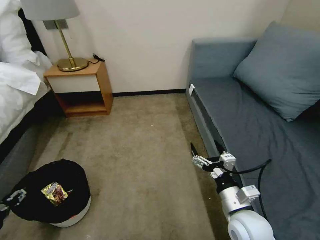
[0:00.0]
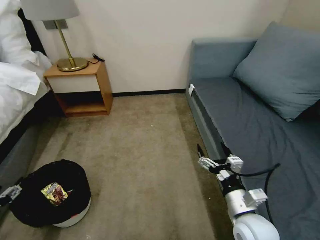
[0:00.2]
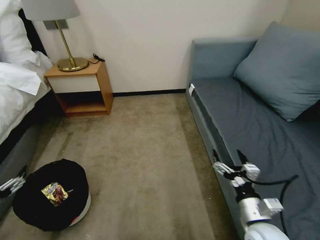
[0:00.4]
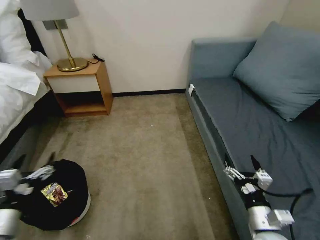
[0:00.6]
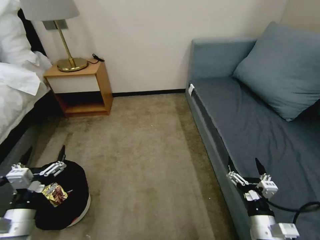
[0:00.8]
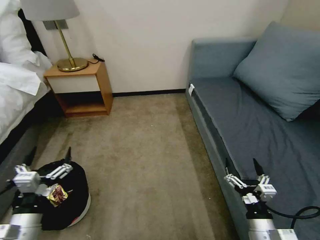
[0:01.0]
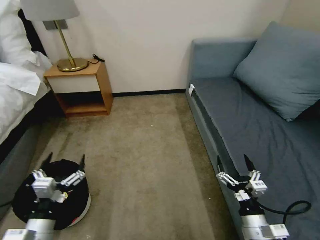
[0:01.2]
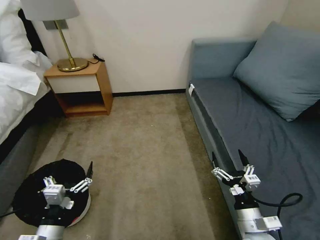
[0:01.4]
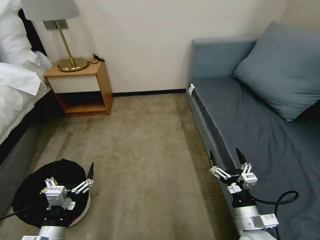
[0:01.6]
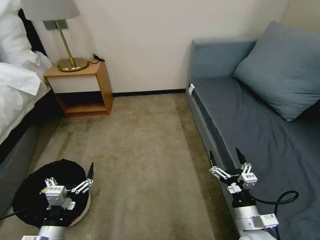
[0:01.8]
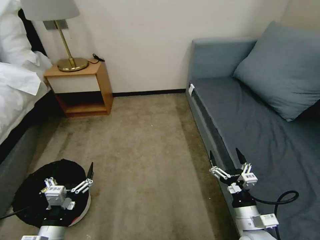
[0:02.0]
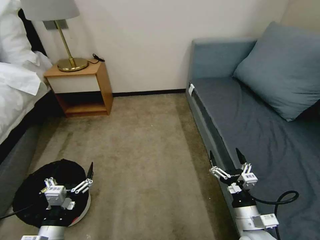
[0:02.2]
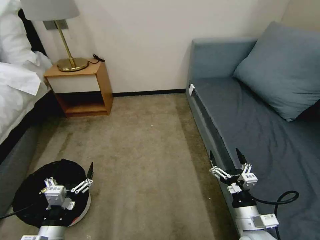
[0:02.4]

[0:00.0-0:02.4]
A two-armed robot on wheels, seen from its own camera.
Task of the whole recording: Pick up the trash bin, then pick up the garbage on the floor and place it into the trash bin.
0:00.0 to 0:01.2: The right gripper goes roughly 10 cm downward, backward and to the right; the left gripper goes about 20 cm to the right, and opens its fingers.
0:01.2 to 0:02.4: The grippers stay close to where they were, moving slightly.

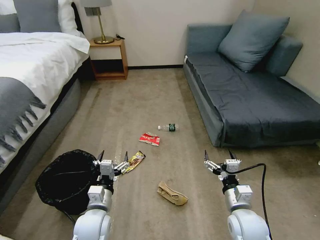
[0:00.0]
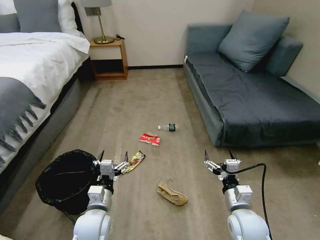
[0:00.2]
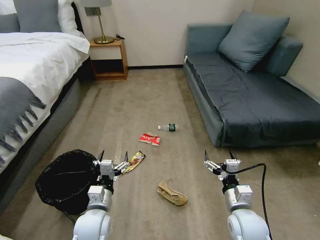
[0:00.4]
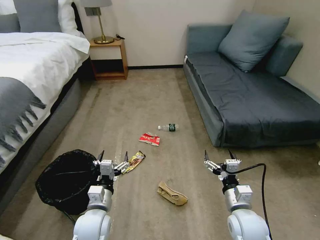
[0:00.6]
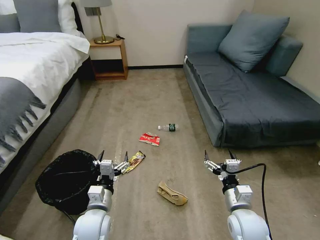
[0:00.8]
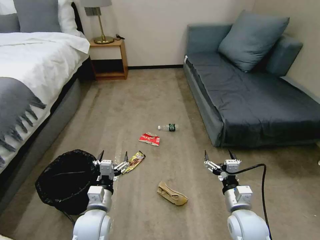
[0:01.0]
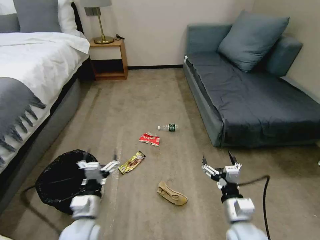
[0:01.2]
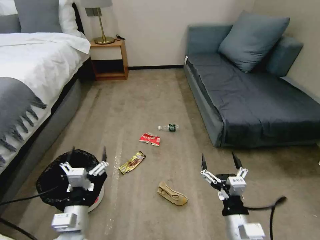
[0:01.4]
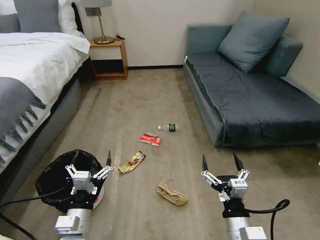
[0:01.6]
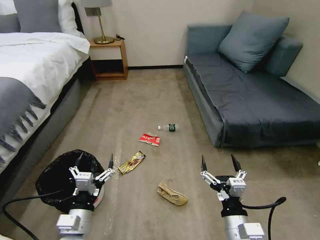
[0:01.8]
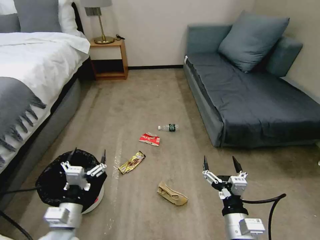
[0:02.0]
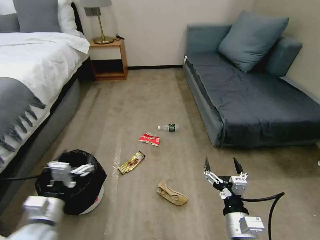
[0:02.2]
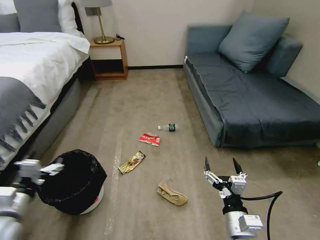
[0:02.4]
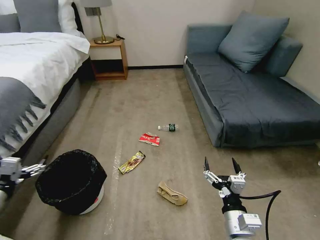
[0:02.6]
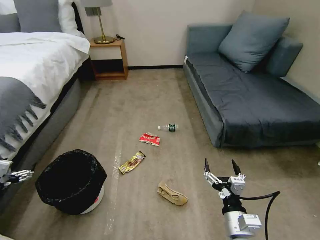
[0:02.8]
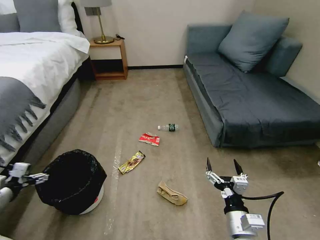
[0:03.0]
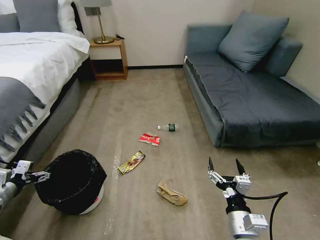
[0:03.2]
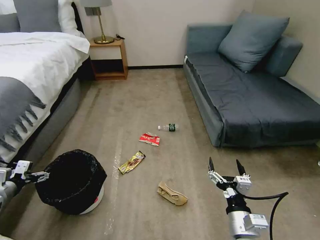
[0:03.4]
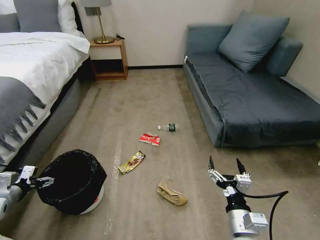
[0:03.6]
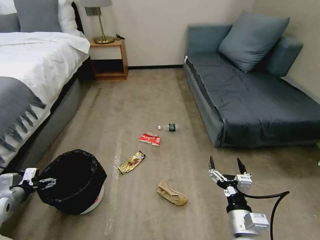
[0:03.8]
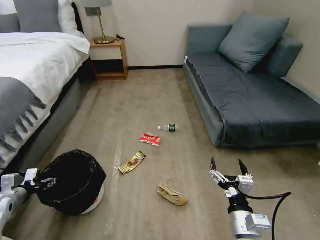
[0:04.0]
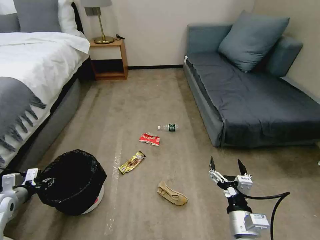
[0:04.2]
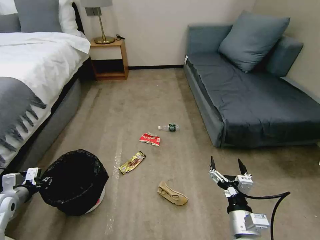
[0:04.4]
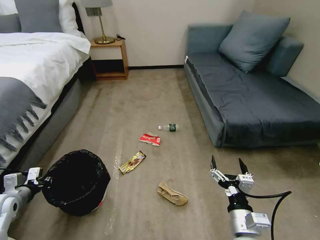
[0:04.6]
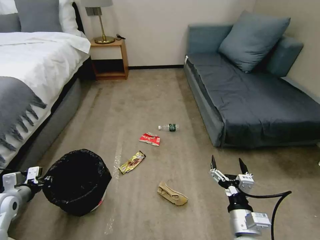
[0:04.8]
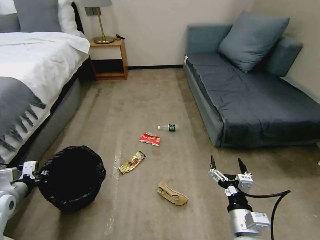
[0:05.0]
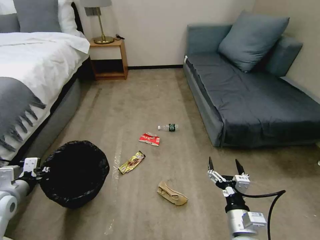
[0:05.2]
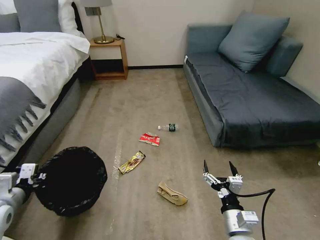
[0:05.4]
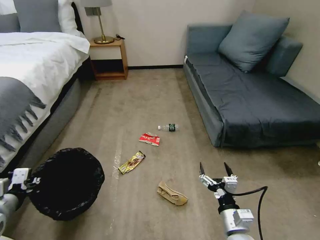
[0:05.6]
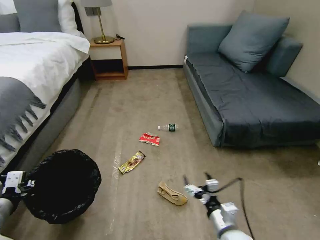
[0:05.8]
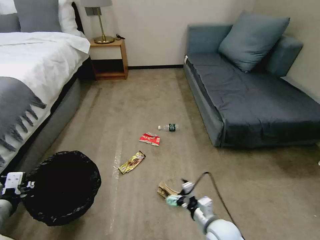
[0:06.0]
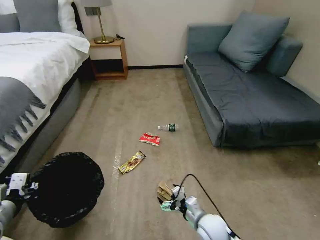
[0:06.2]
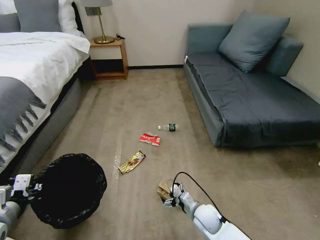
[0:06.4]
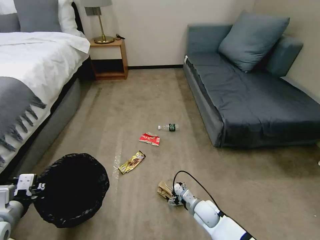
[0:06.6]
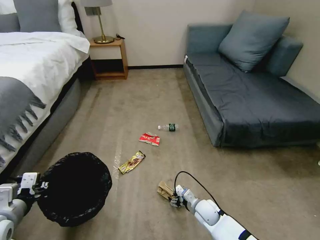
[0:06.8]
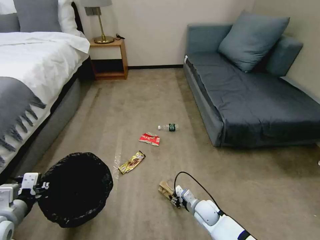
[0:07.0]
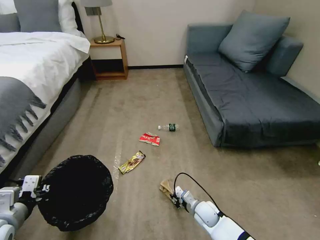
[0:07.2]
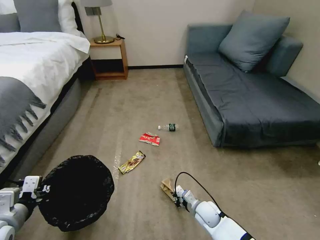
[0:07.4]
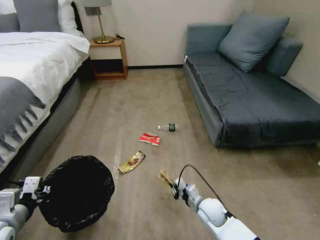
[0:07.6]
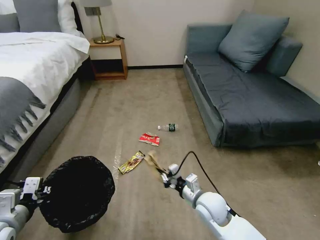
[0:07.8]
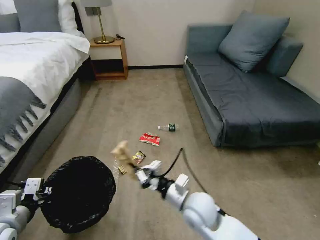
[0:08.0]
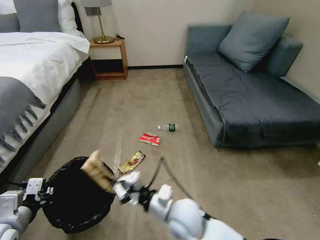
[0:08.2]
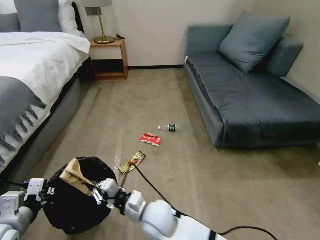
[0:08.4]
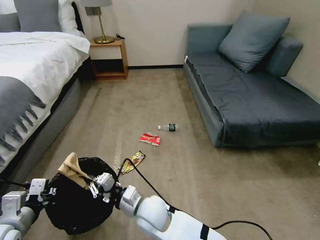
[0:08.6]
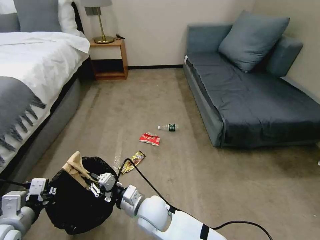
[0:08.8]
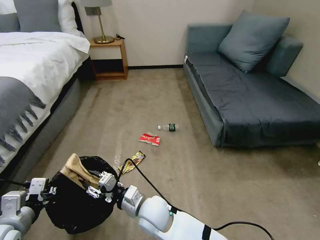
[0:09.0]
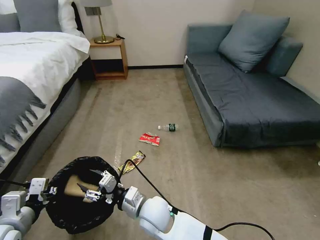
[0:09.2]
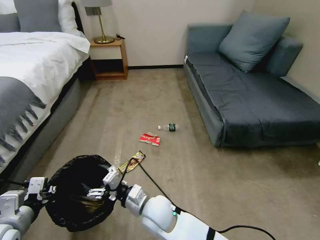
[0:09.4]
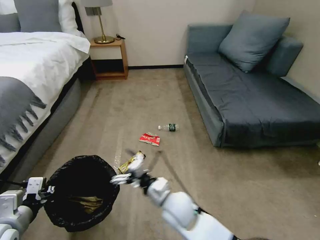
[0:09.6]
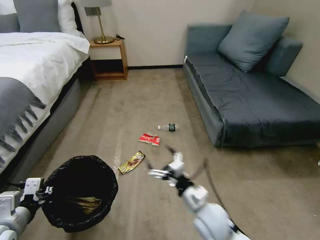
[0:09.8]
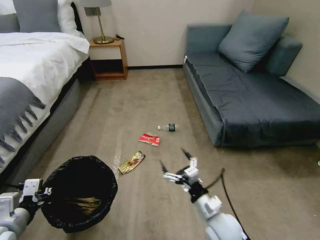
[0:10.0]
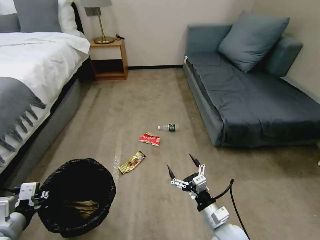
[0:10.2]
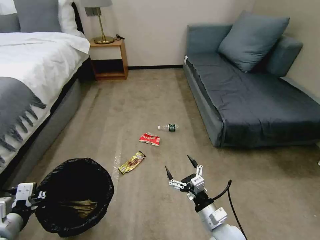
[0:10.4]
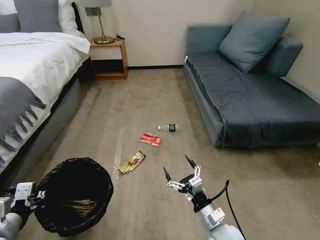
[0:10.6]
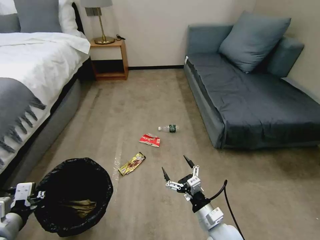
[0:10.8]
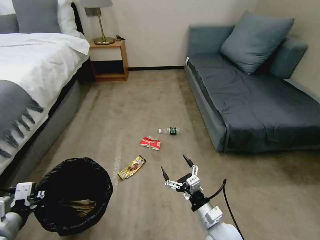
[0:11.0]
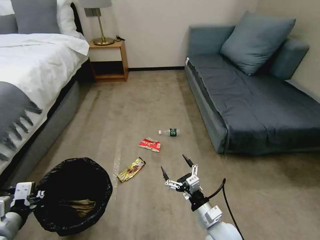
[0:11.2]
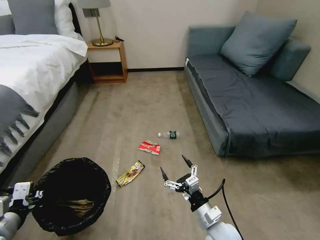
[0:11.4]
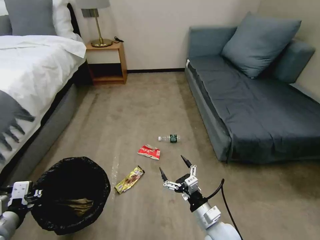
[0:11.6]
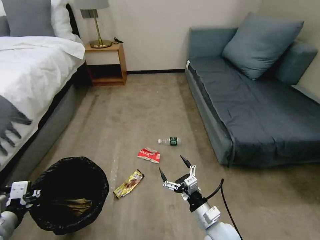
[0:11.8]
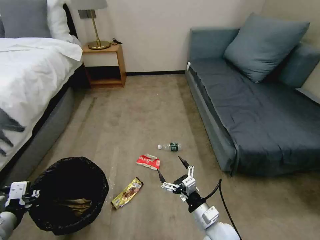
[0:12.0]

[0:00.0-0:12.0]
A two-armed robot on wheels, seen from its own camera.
Task of the whole recording: Pick up the trash bin, then pick up the garbage on the floor and place it into the trash bin.
0:01.6 to 0:03.0: The left gripper moves to the left, some 30 cm.
0:03.0 to 0:04.4: The left gripper closes up.
0:04.4 to 0:06.0: The right gripper travels downward by approximately 5 cm. Meanwhile the left gripper is displaced upward, backward and to the right by approximately 15 cm.
0:06.0 to 0:07.6: The right gripper goes some 10 cm forward and downward, and closes up.
0:07.6 to 0:09.0: The right gripper goes approximately 25 cm to the left and upward, and opens up.
0:09.0 to 0:10.4: The right gripper travels to the right by about 20 cm, and opens up.

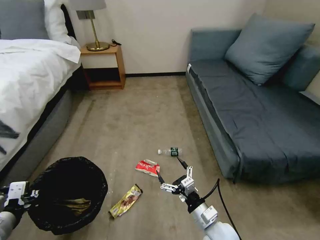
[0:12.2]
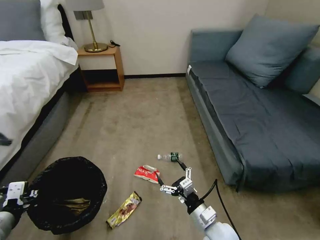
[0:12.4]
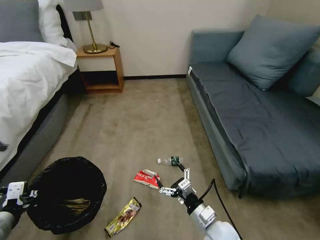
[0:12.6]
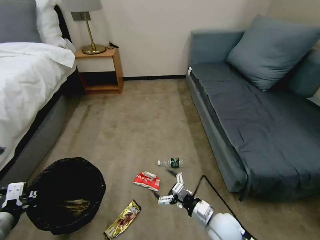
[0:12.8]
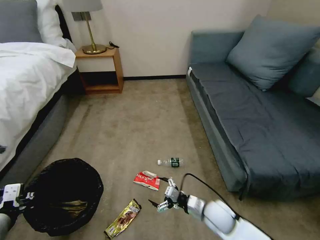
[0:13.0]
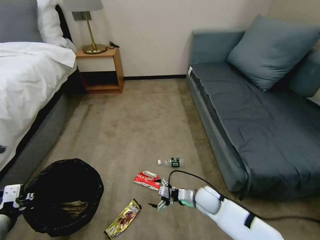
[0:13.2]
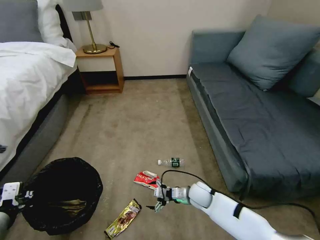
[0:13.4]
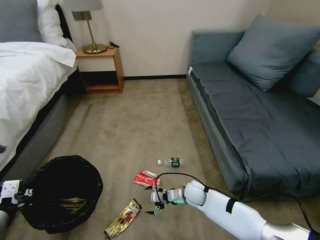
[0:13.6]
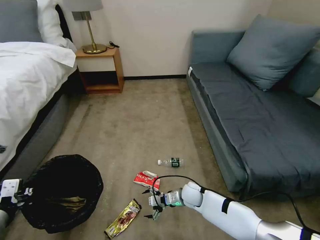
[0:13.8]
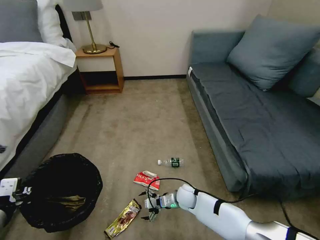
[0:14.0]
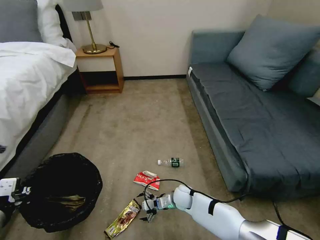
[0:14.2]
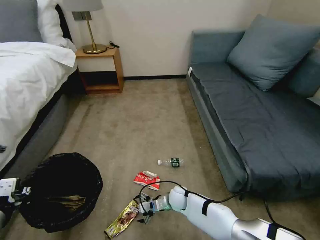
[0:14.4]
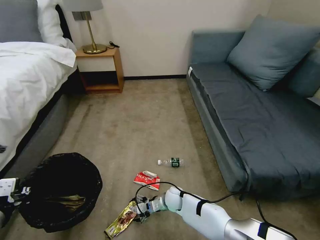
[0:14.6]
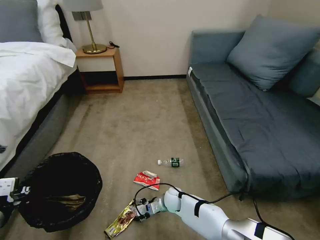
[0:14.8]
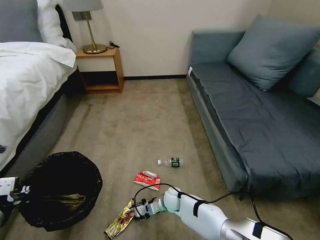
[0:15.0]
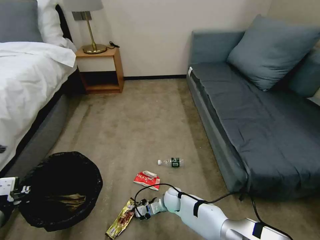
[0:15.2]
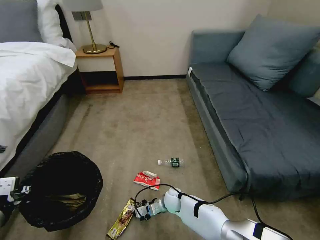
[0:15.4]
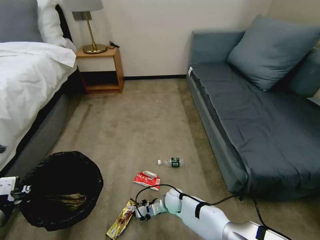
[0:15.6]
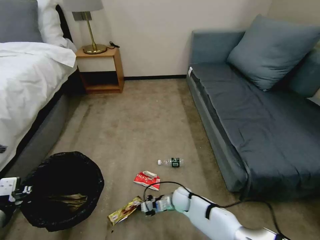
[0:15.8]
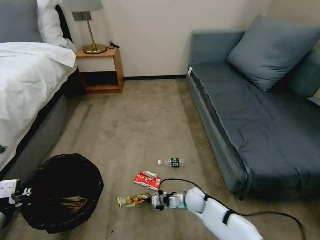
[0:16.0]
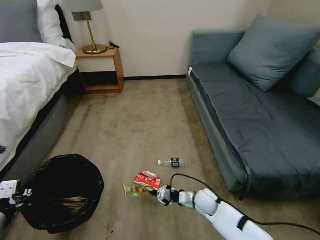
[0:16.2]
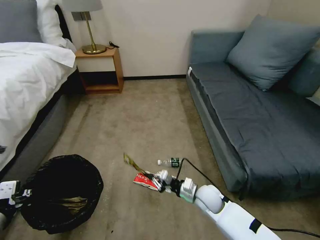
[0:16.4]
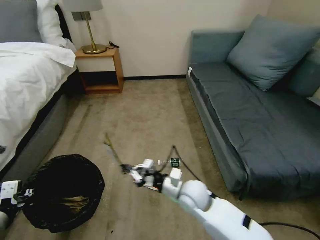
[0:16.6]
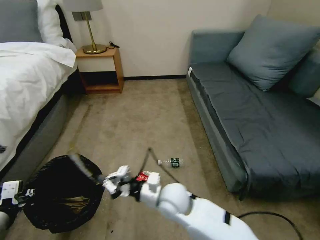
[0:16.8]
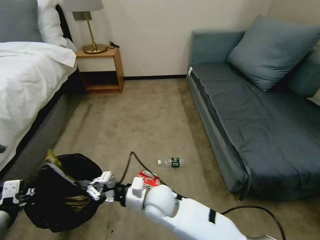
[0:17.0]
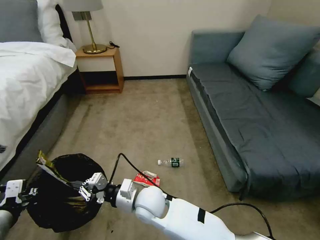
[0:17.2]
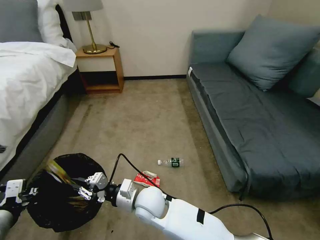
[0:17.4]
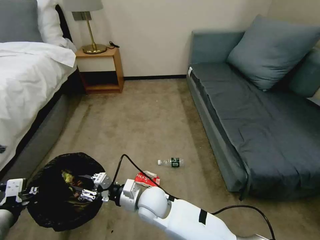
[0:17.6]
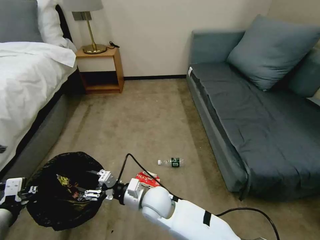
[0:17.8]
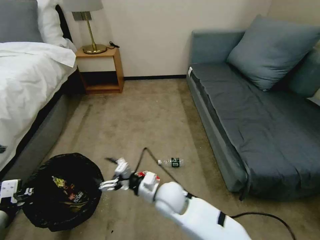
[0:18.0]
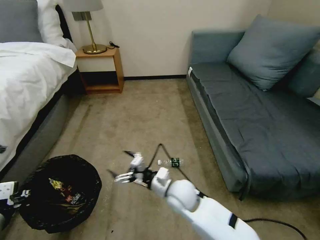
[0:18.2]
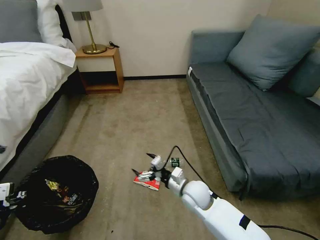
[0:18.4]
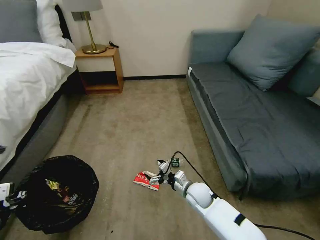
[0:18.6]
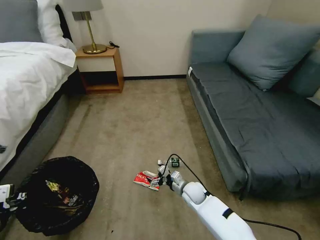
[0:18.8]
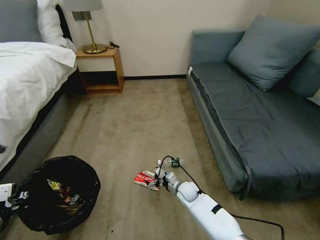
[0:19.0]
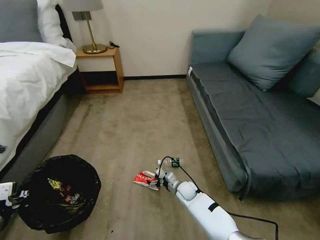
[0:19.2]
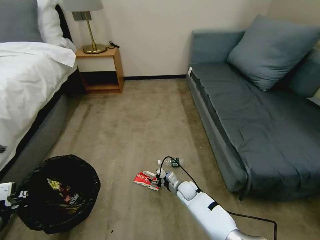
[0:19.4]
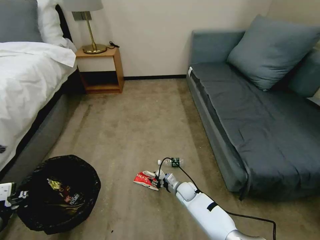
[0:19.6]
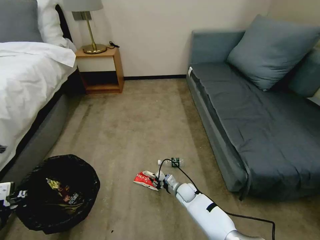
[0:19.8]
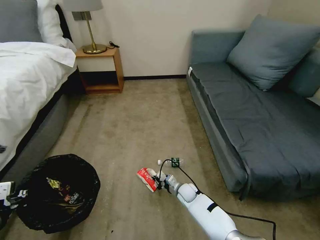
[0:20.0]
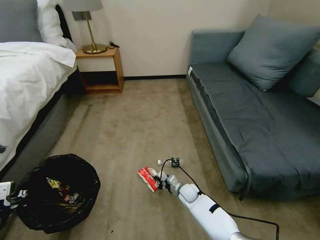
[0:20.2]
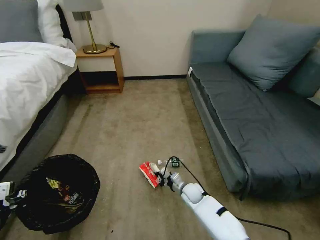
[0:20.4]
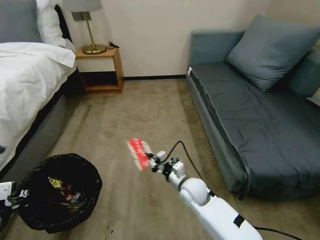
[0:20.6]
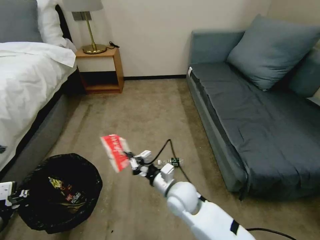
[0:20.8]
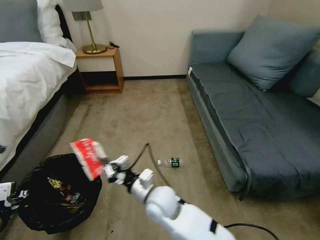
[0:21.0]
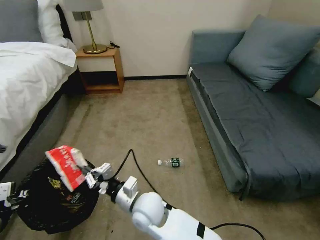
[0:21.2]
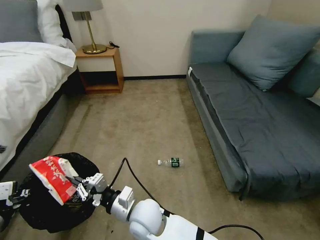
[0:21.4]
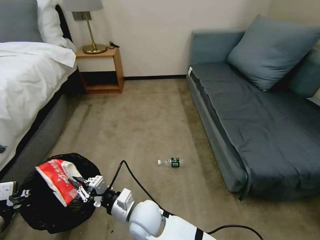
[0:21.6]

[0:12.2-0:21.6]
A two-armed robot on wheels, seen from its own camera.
Task of the whole recording: Pick up the trash bin, then pick up the garbage on the floor and place it into the trash bin.
0:12.2 to 0:13.8: The right gripper goes some 20 cm forward and downward.
0:13.8 to 0:15.4: The right gripper goes approximately 10 cm to the left and downward, and closes its fingers.
0:15.4 to 0:17.0: The right gripper heads upward, covering roughly 20 cm.
0:17.0 to 0:18.4: The right gripper moves to the right and downward, about 15 cm, and opens its fingers.
0:18.4 to 0:20.0: The right gripper moves downward, some 15 cm, and closes its fingers.
0:20.0 to 0:21.6: The right gripper goes approximately 30 cm upward, to the left and backward.
